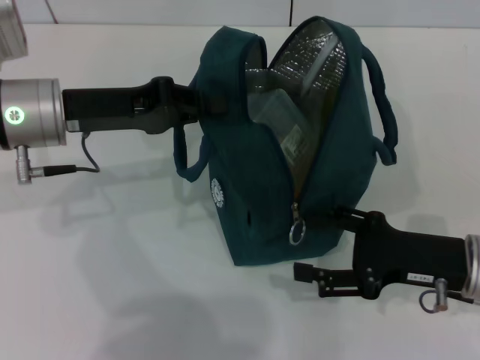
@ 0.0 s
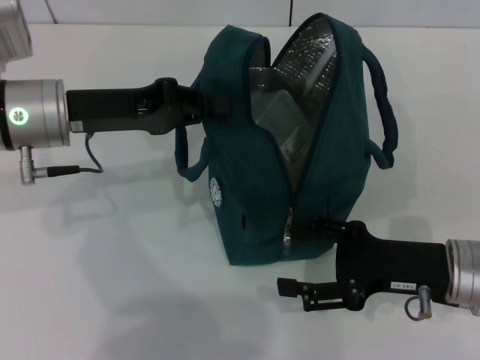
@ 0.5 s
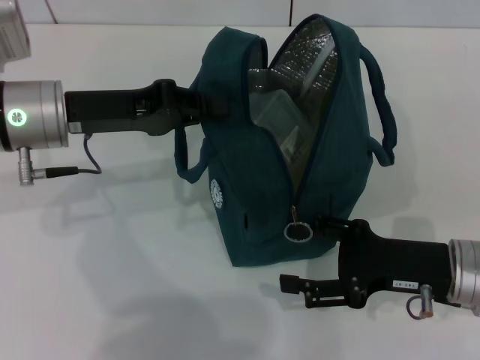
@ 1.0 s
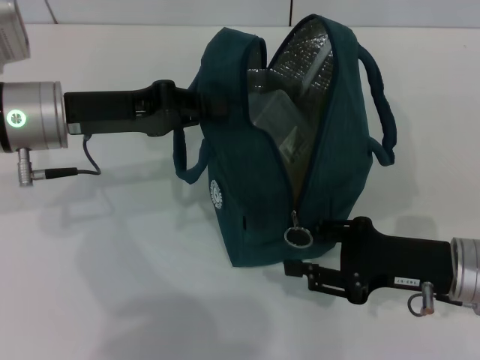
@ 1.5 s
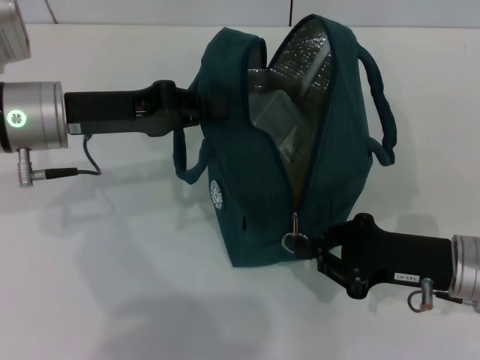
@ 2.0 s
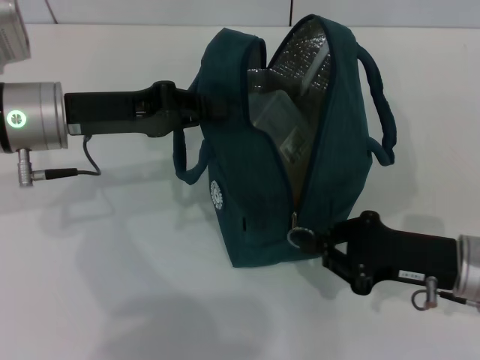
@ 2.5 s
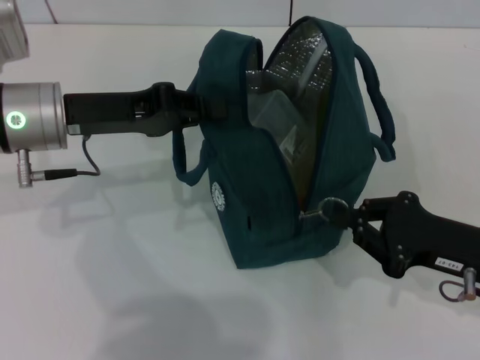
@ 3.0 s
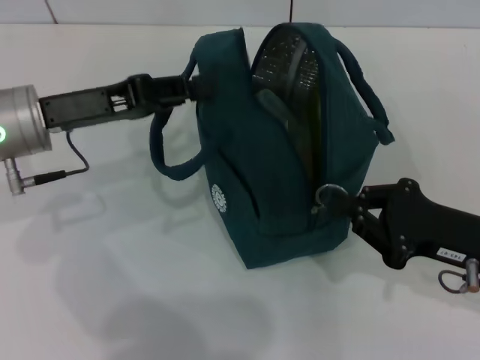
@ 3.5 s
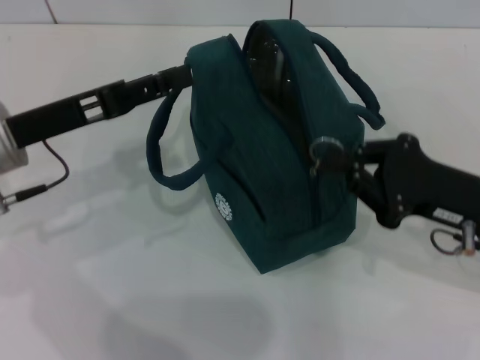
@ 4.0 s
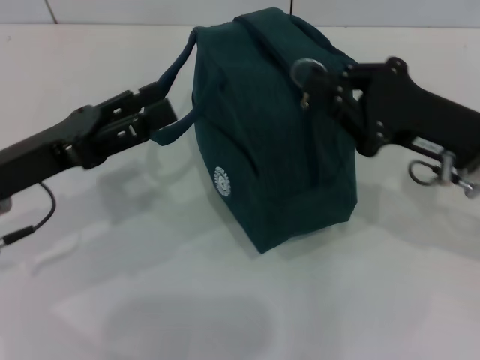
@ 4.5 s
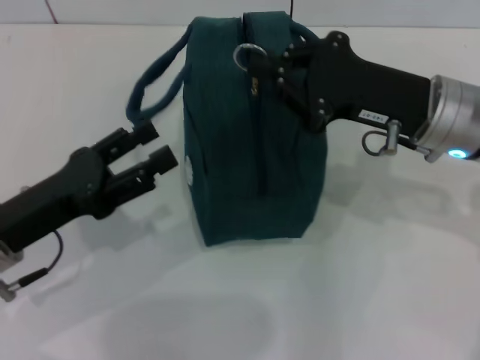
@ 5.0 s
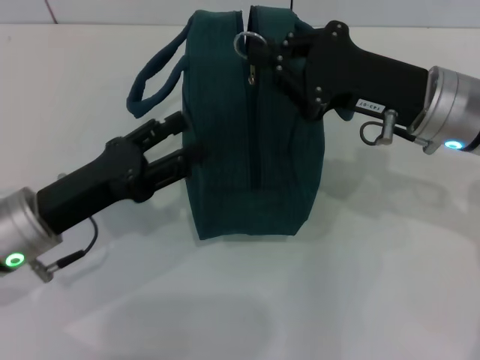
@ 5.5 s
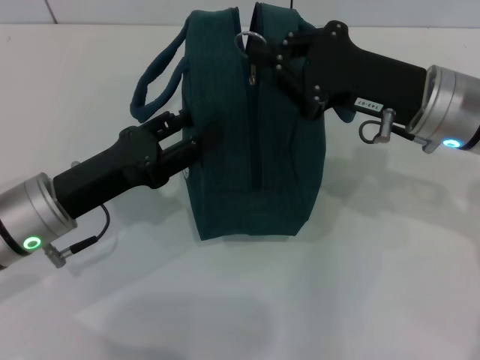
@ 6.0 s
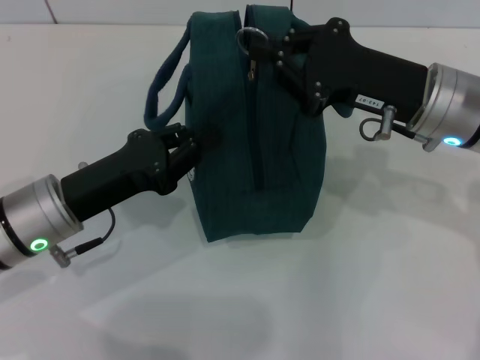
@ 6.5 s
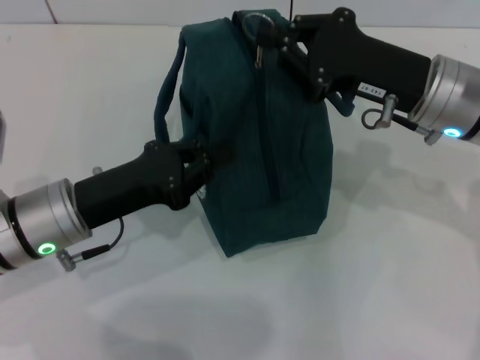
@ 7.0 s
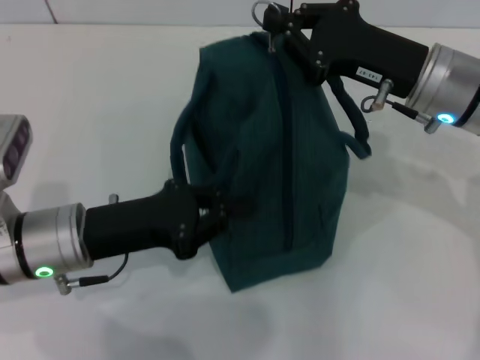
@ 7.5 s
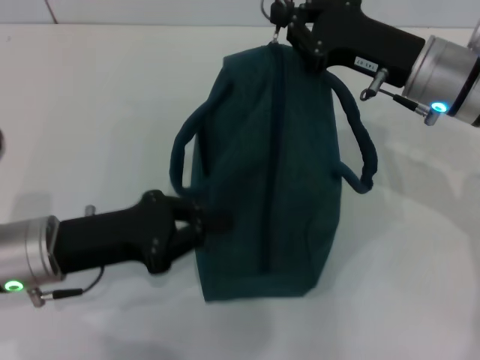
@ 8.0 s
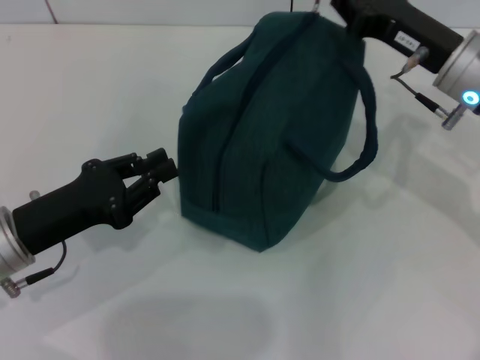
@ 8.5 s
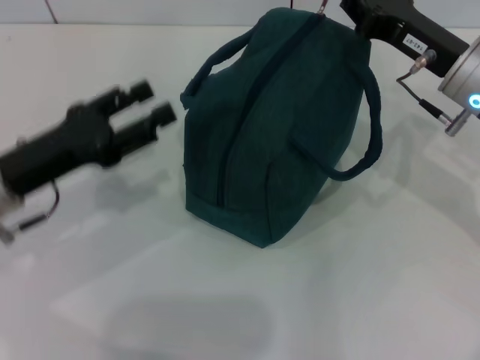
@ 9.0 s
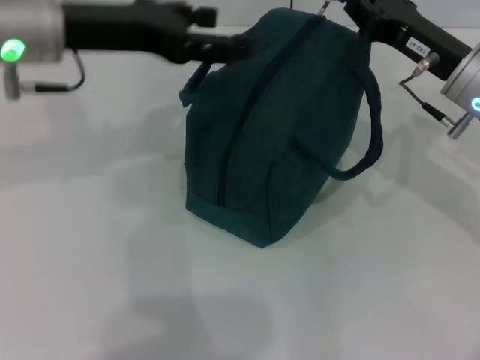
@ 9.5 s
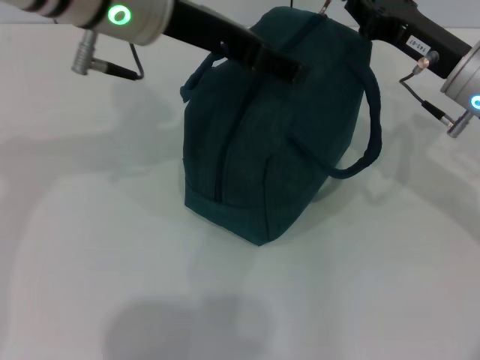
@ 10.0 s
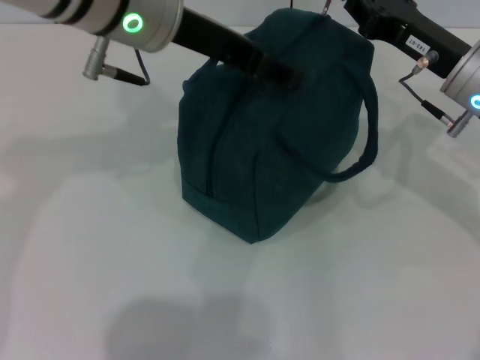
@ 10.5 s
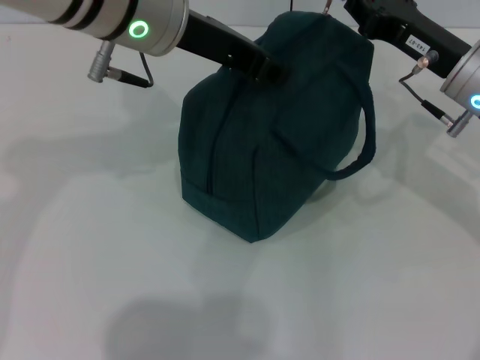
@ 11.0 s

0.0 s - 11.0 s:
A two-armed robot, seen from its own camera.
Step, 0.0 s - 3.5 s: Hold the lunch bag with your left hand.
0.0 s - 2.0 s: The right gripper closes.
3.5 s - 5.5 s: The left gripper moves backward and downward, about 10 cm, and opens. The right gripper goes about 15 cm forward, upward and to the left.
5.5 s - 7.5 s: The left gripper closes up.
7.5 s - 9.0 s: The left gripper heads to the left, covering roughly 5 cm, and opens up.
9.0 s - 11.0 s: The left gripper is displaced upward, to the right and forward by some 25 cm, and opens, then closes once more.

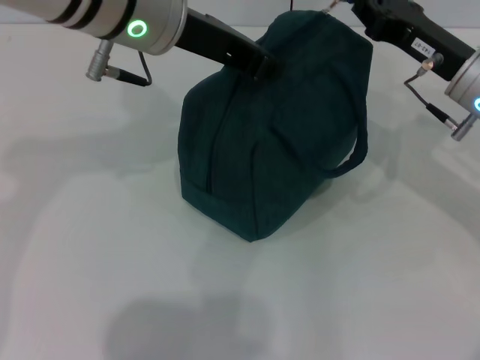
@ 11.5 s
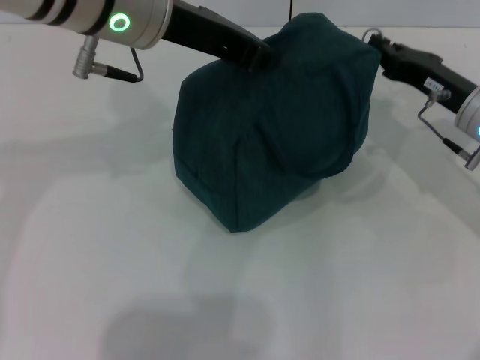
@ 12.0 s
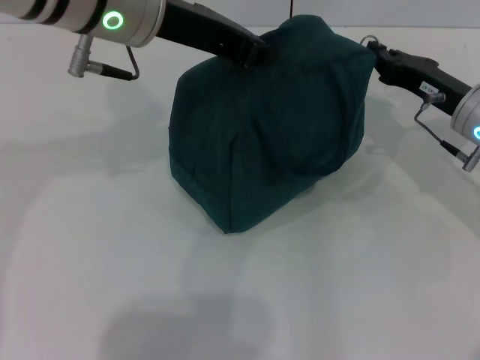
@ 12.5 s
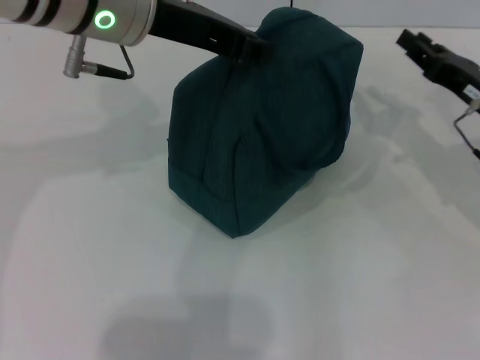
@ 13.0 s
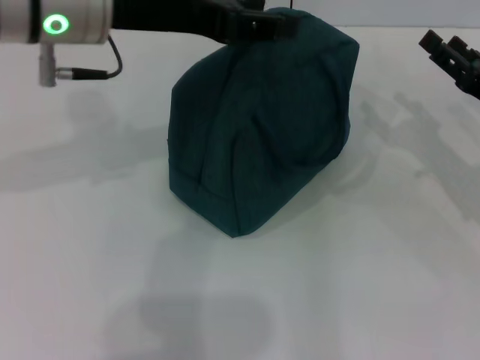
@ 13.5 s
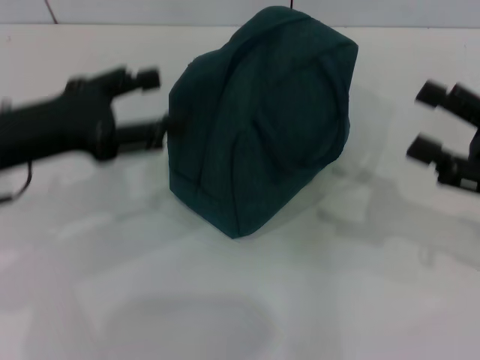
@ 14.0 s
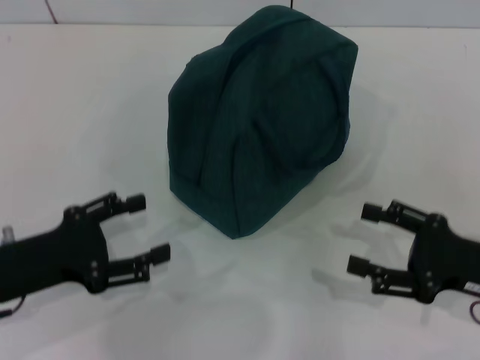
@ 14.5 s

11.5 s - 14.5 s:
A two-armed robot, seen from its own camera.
Step, 13.0 s - 13.5 s: Hold the lunch bag with your left hand.
11.5 s - 13.0 s: The right gripper goes roughly 5 cm to the right.
13.0 s - 14.5 s: The right gripper moves backward, some 10 cm, and opens. The left gripper travels downward, to the left and backward by about 30 cm, and opens its fingers.

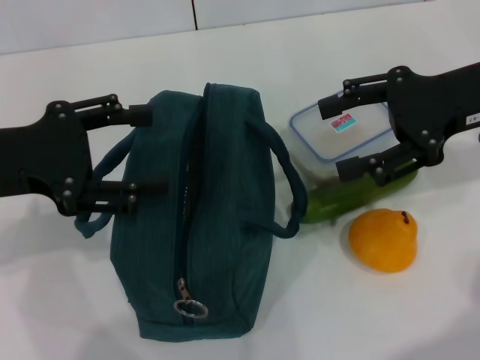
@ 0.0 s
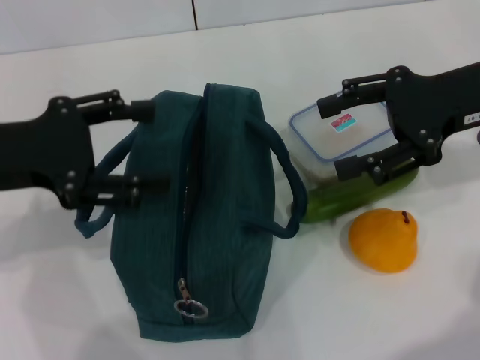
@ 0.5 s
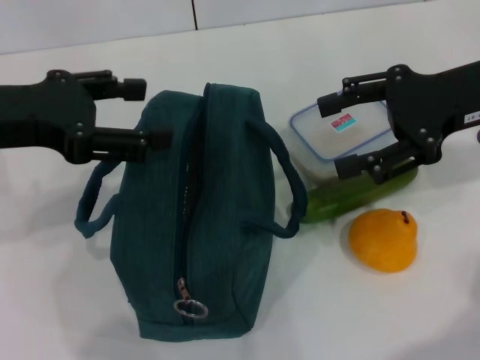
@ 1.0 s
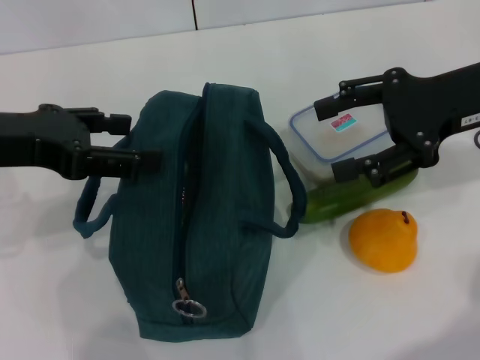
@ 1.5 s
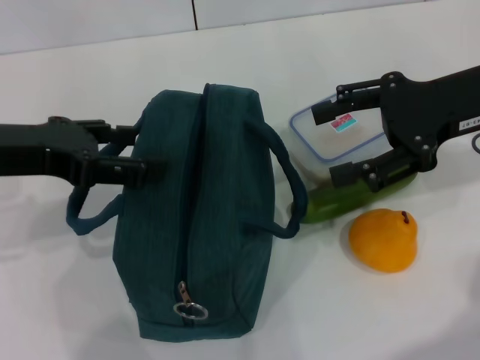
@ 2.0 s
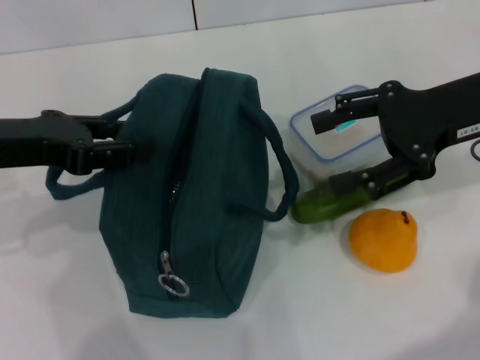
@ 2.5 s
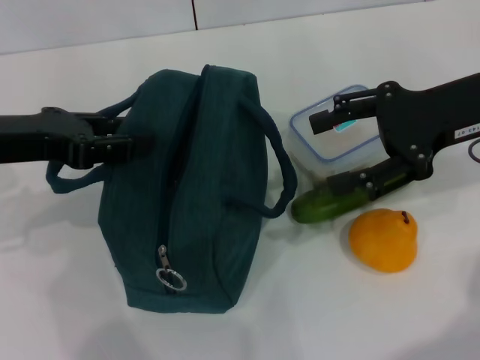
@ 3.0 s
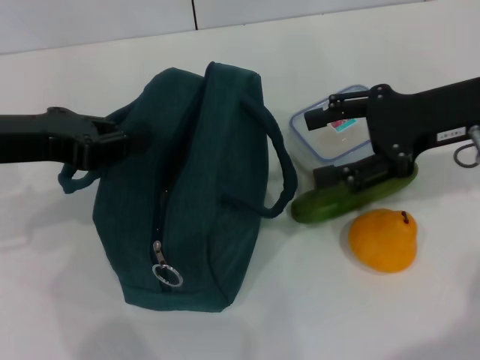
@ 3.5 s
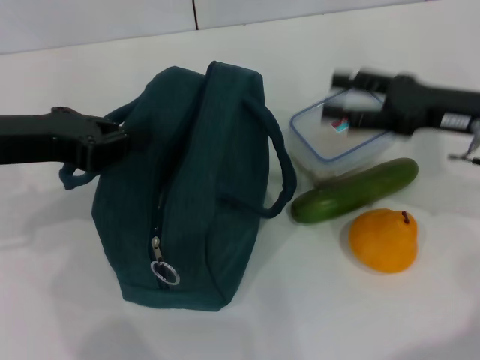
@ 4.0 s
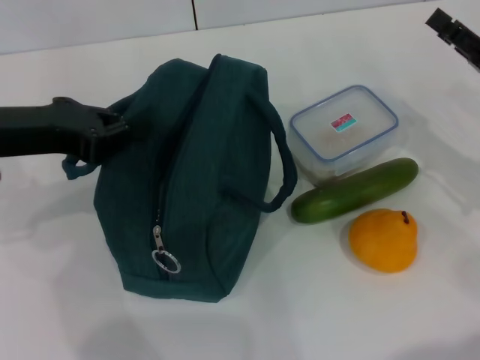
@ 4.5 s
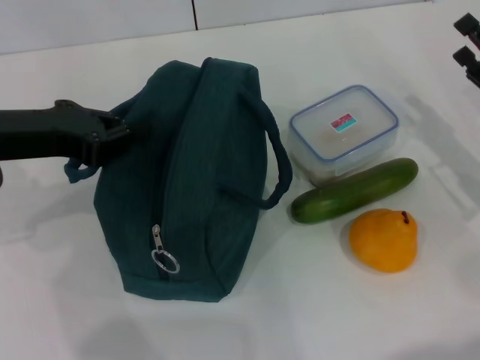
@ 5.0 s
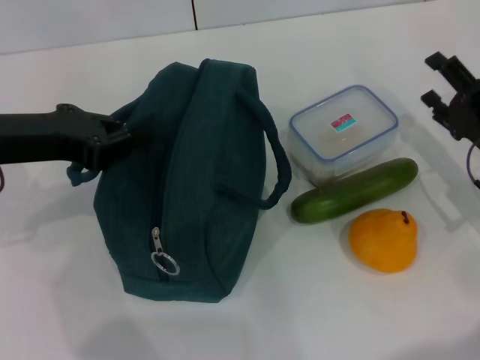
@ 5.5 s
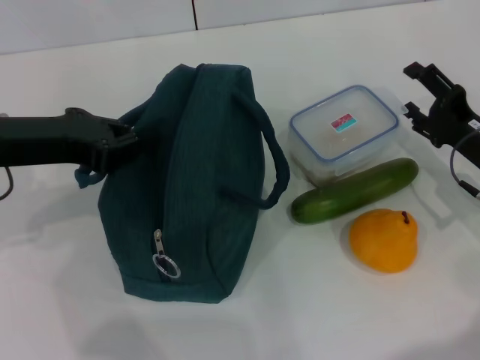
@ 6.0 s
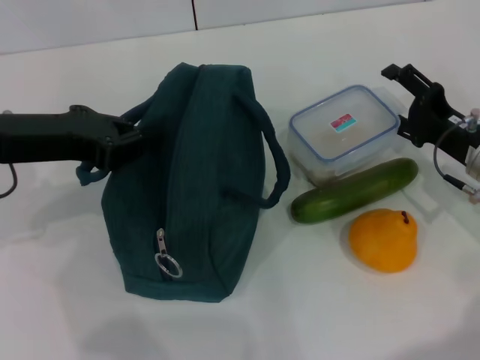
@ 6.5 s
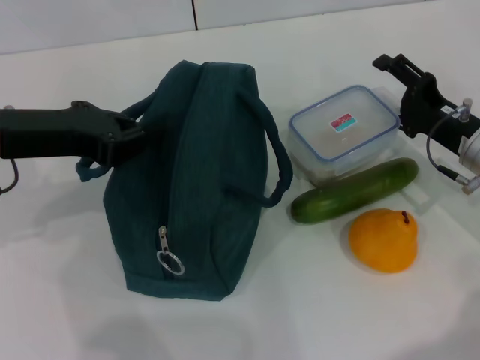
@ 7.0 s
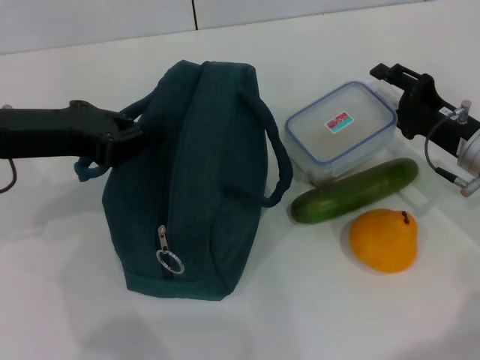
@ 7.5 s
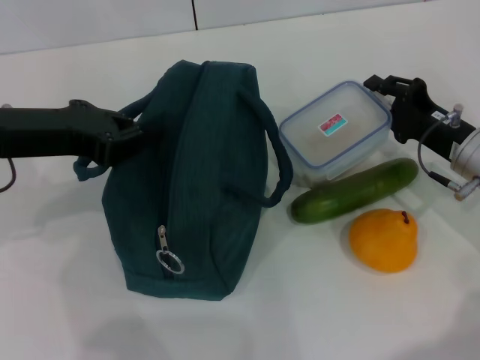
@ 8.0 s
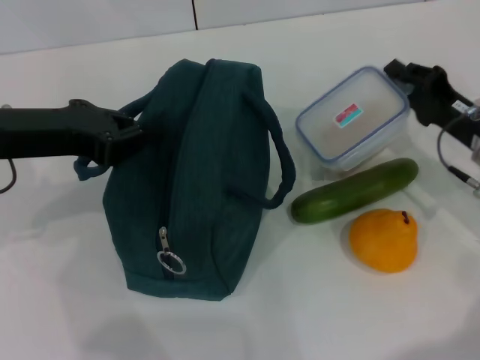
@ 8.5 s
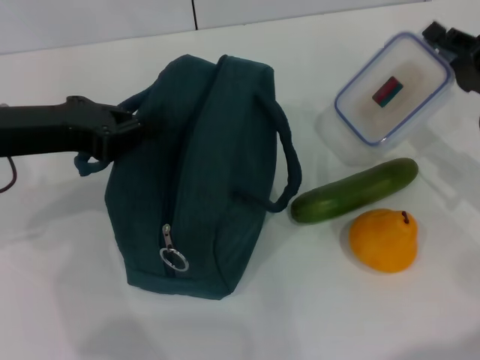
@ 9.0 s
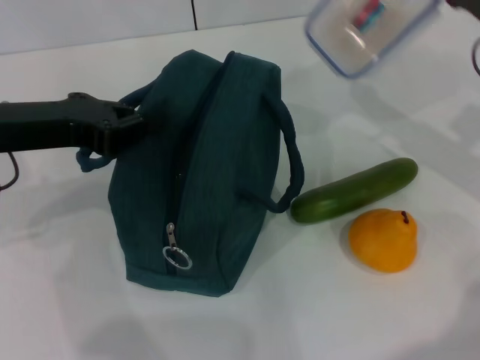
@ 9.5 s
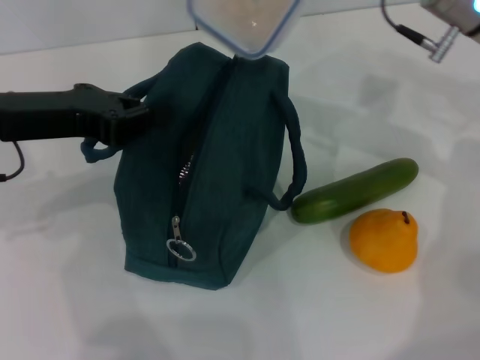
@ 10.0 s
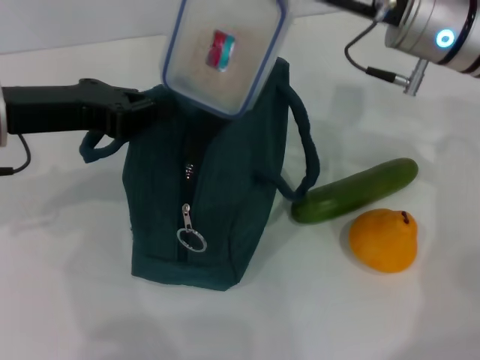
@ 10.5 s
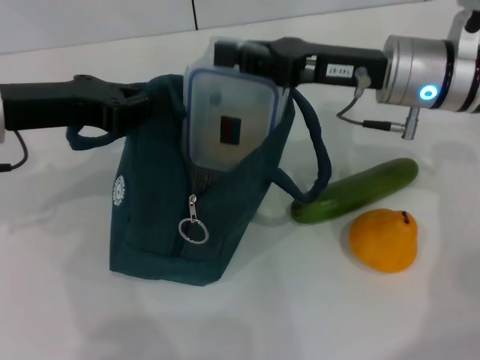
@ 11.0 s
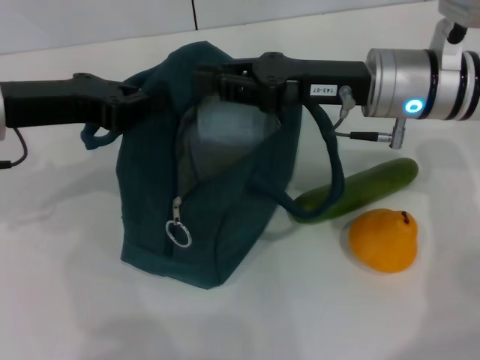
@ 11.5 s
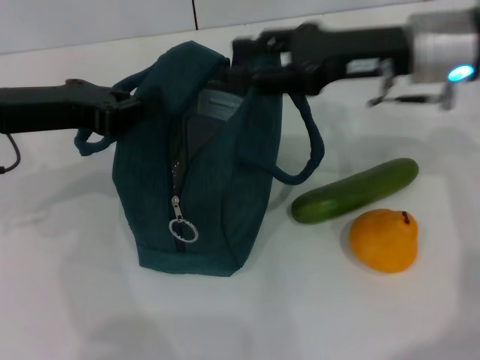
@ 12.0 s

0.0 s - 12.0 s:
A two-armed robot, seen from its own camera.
Step, 0.0 s - 4.0 s: Hold the lunch bag with your left hand.
Step, 4.5 s - 8.0 s: Pick up the lunch box with your right hand.
Step, 9.0 s - 11.5 s: Place the lunch box into the lunch bag with your right hand.
2.0 s - 4.0 s: The right gripper heads downward, covering about 5 cm, while the left gripper closes.
4.0 s - 6.0 s: The right gripper shifts roughly 10 cm downward.
6.0 s - 8.0 s: The right gripper closes up.
8.0 s - 10.0 s: The right gripper moves upward and forward, about 15 cm.
10.0 s - 12.0 s: The right gripper opens up.
